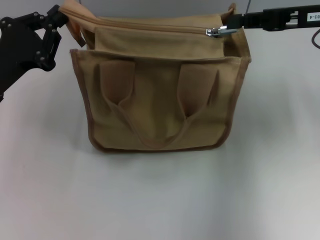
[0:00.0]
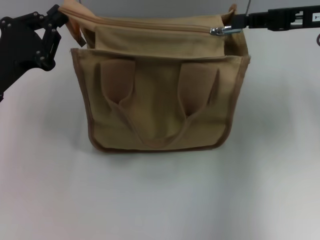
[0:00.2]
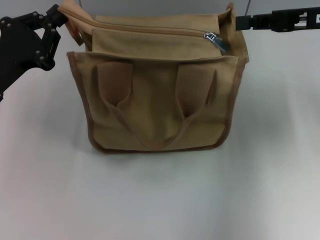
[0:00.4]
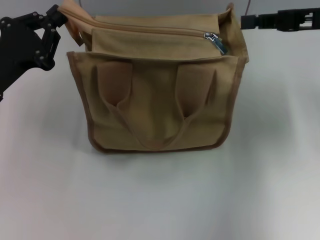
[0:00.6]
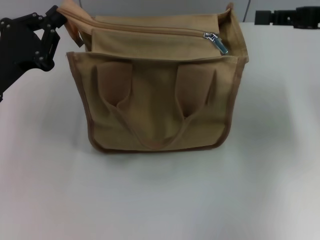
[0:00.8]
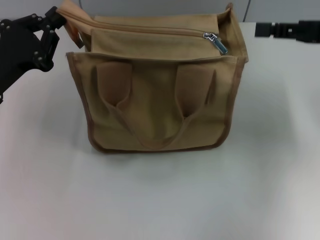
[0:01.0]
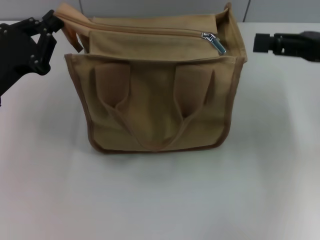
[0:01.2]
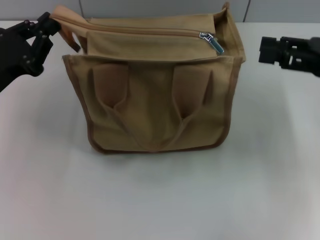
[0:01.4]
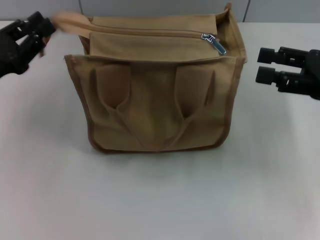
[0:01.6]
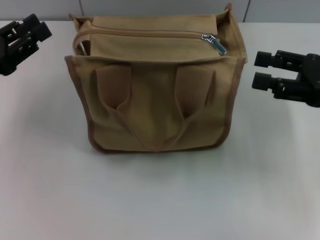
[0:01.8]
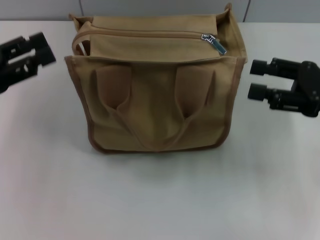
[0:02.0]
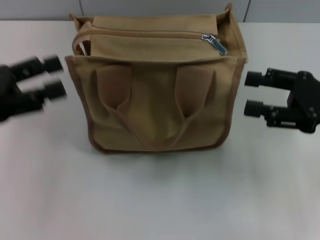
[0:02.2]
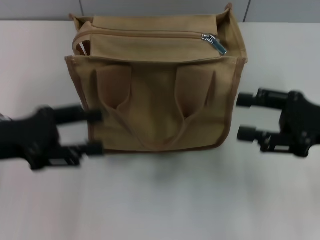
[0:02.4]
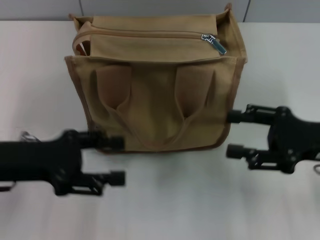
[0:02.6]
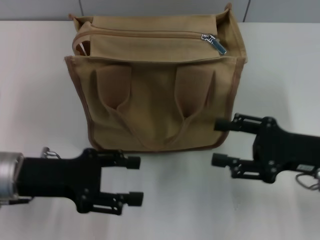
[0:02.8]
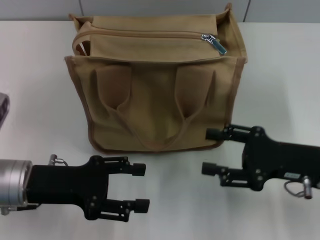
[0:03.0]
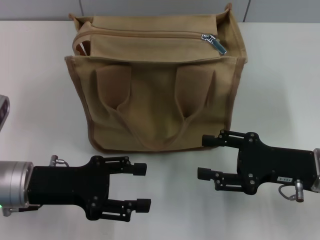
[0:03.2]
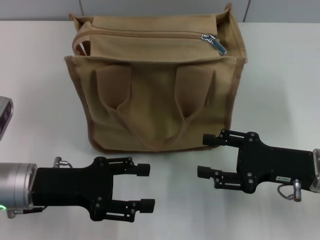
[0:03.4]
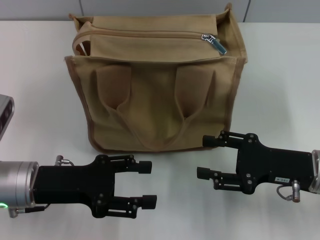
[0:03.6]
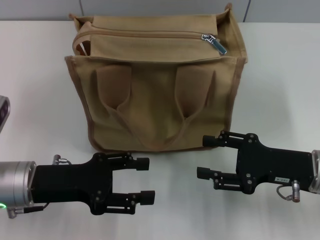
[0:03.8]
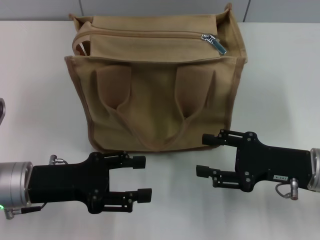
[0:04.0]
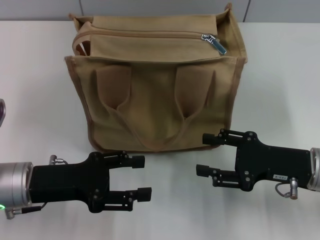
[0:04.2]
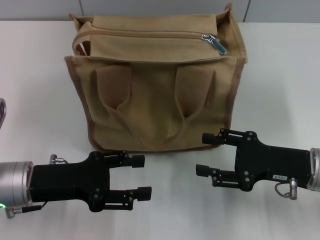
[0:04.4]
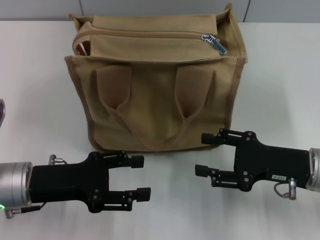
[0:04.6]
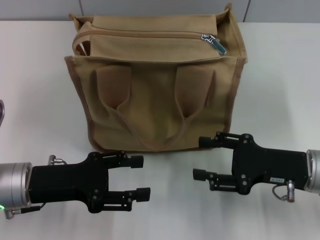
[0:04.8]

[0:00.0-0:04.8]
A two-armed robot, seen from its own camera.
Step, 0:00.6 to 0:01.6: Grab the zipper with your left hand.
0:00.0 to 0:01.6: The right gripper is displaced backward and downward by some 10 cm, and opens its fingers.
0:01.6 to 0:03.2: The left gripper heads to the right, covering approximately 5 cm, and opens. The right gripper shifts approximately 15 cm downward, to the left and backward.
0:03.2 to 0:04.8: The grippers move only a little.

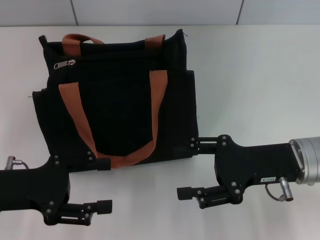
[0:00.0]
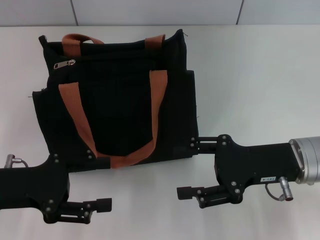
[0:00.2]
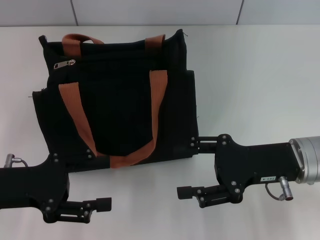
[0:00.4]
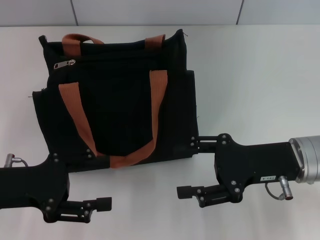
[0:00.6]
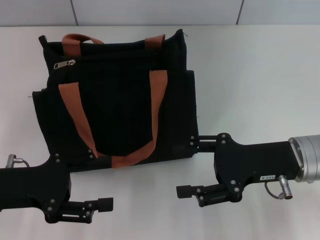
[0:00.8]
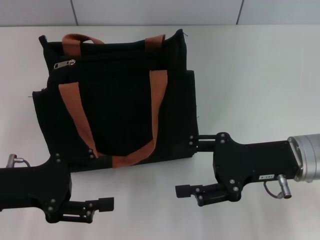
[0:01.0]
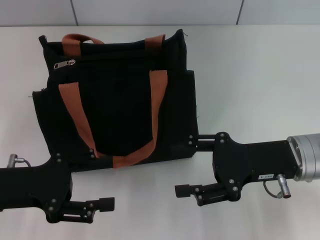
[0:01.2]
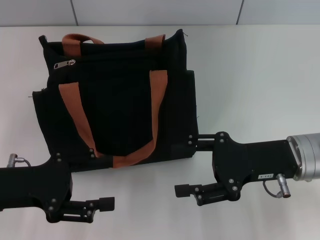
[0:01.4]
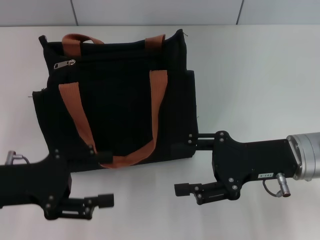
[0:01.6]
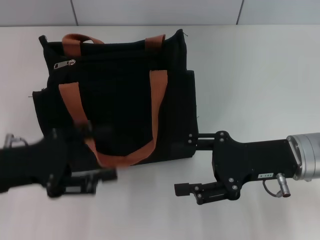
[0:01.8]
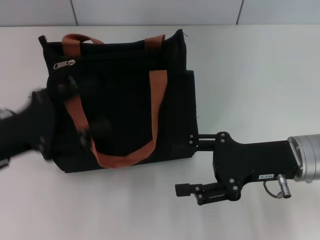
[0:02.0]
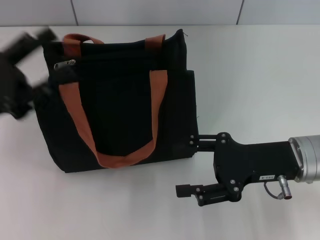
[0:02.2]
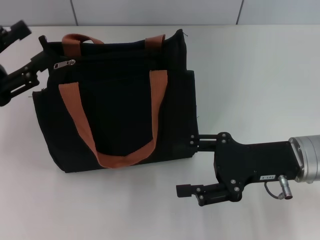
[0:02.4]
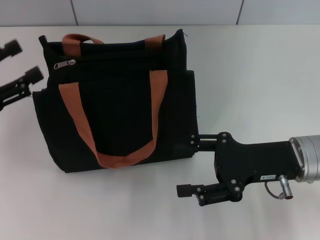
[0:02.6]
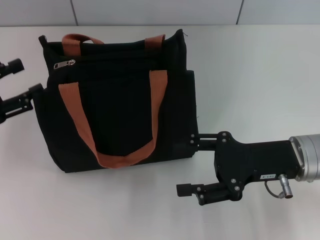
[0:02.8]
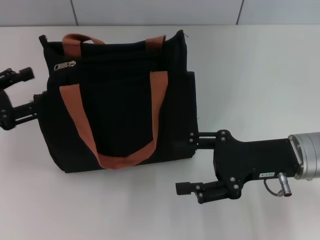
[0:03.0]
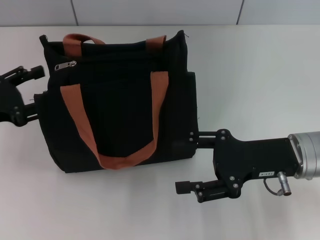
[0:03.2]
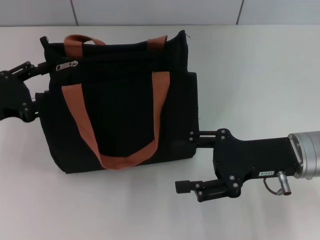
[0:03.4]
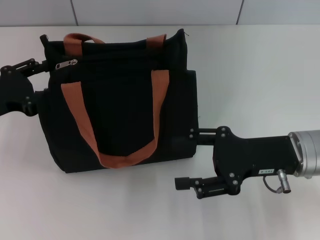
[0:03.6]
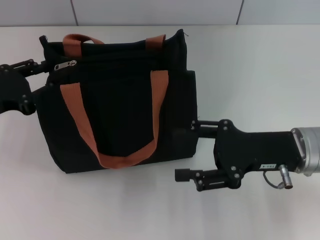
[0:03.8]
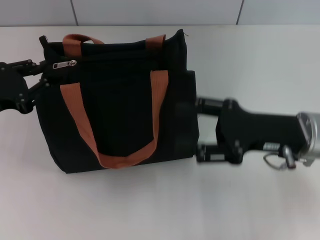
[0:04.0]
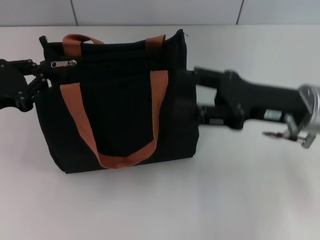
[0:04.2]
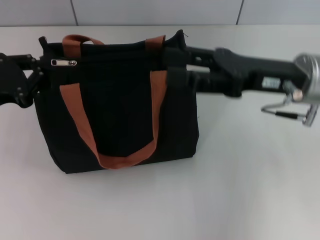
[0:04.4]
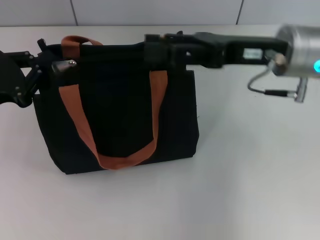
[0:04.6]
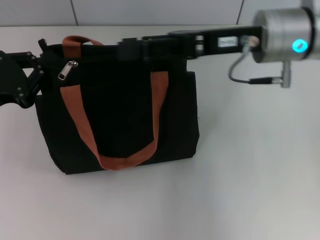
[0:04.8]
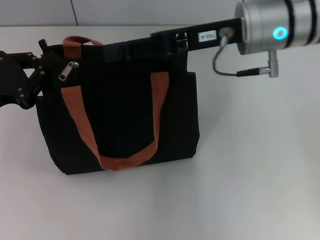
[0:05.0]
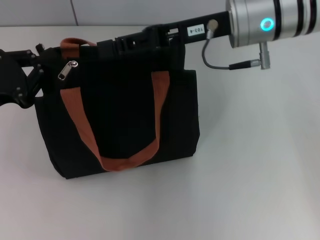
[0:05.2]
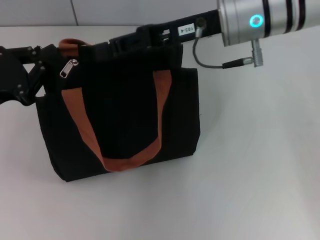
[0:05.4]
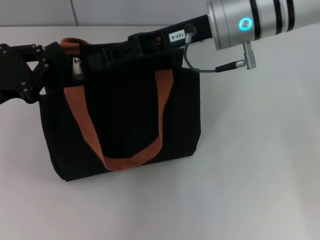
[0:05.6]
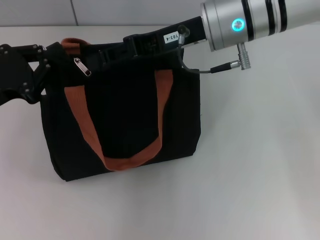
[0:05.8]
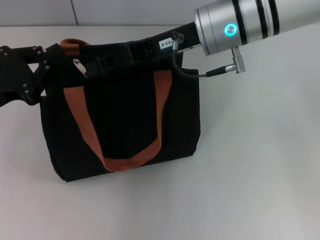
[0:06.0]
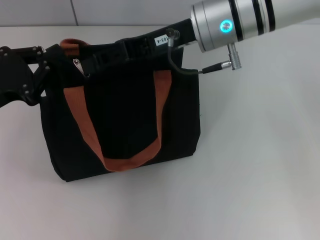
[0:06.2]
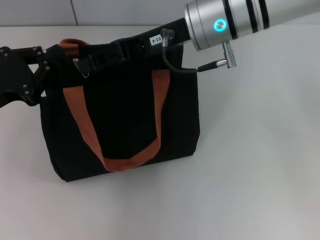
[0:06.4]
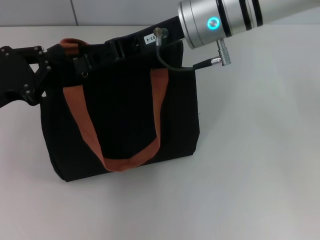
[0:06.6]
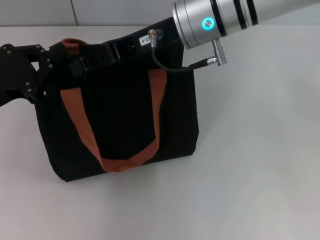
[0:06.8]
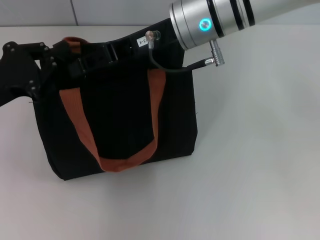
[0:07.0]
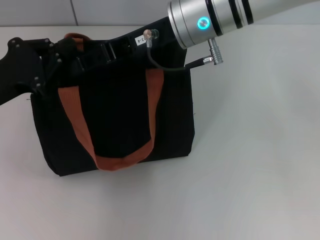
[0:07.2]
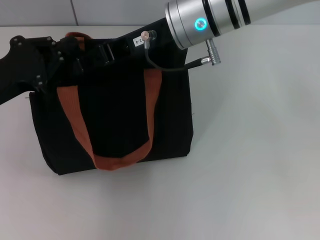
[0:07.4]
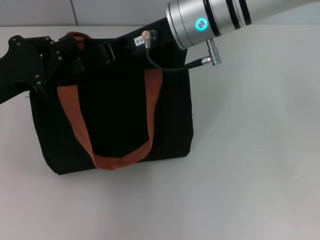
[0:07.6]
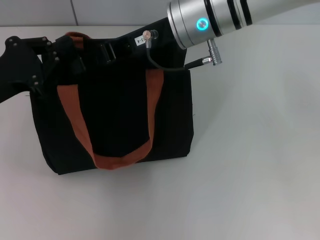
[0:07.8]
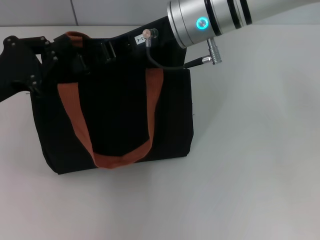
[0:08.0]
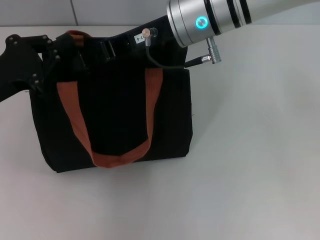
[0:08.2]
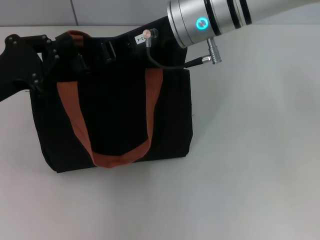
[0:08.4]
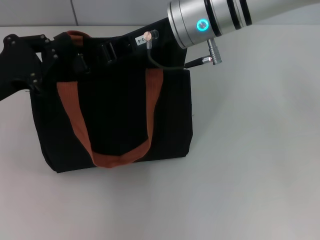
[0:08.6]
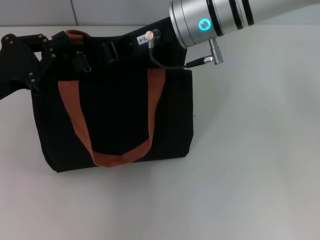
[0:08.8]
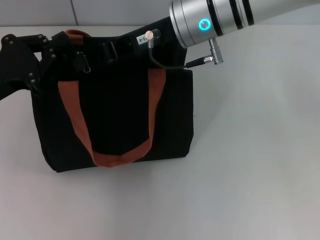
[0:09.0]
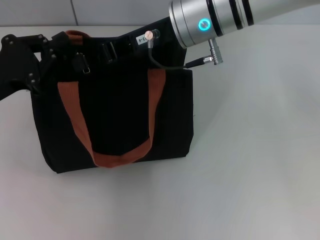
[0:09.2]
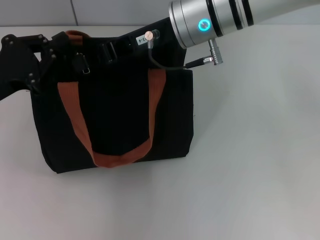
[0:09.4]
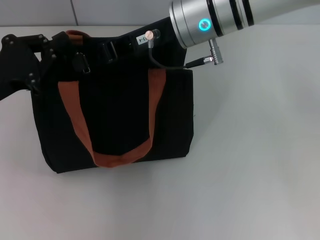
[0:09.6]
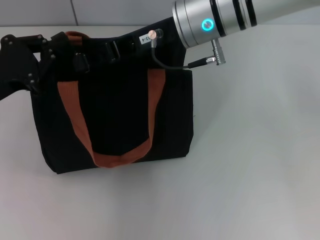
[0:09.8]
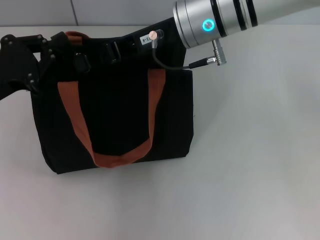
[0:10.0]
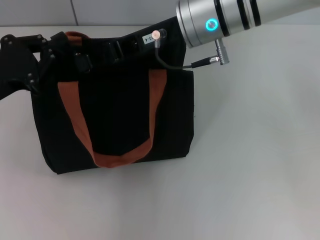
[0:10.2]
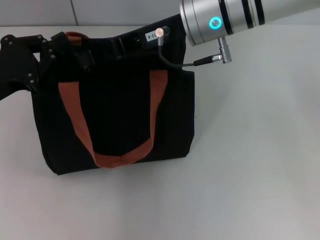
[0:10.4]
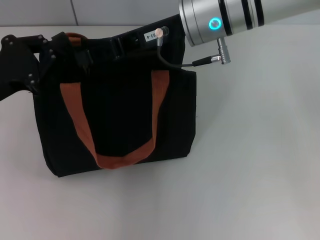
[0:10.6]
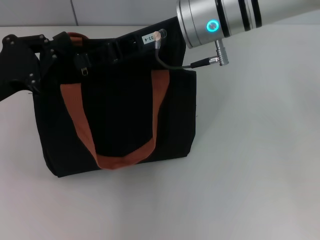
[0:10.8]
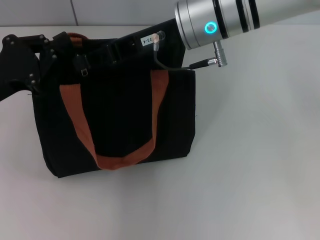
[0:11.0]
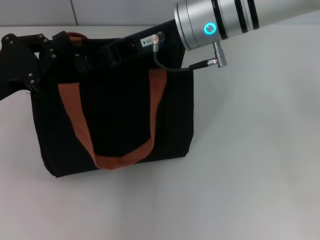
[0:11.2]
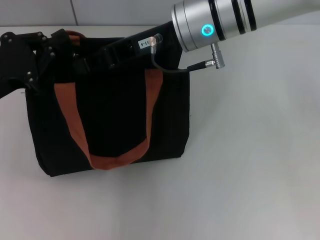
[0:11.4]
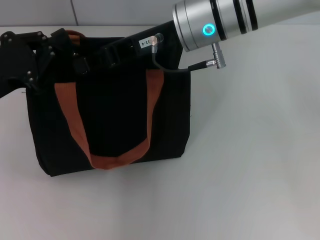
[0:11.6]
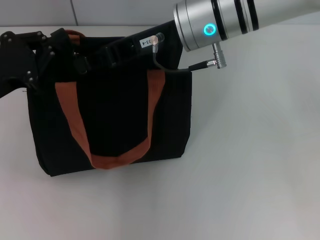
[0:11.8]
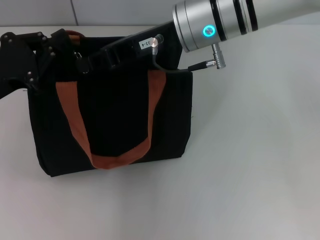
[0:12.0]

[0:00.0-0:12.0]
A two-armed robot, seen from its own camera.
0:00.0 to 0:01.6: Both grippers stay put.
0:01.6 to 0:03.0: The left gripper is displaced to the left by roughly 5 cm.
0:03.0 to 0:04.4: The left gripper closes up. The right gripper is displaced upward by roughly 5 cm.
0:04.4 to 0:06.0: The right gripper goes about 15 cm to the left and forward, and closes.
0:06.0 to 0:07.6: The grippers make only small movements.
0:07.6 to 0:09.0: Neither gripper changes place.
0:09.0 to 0:12.0: The two grippers keep their place.

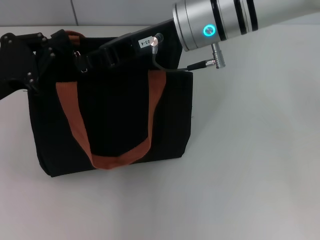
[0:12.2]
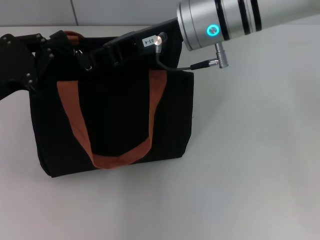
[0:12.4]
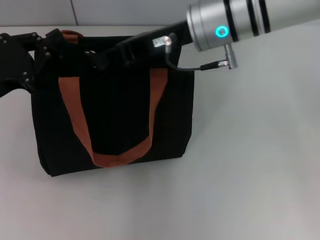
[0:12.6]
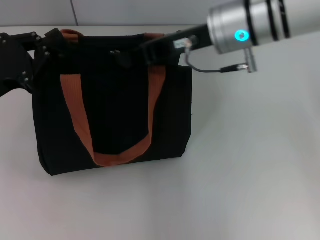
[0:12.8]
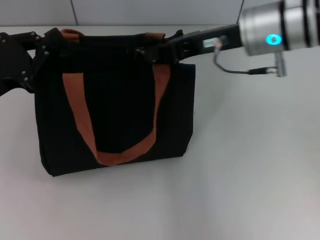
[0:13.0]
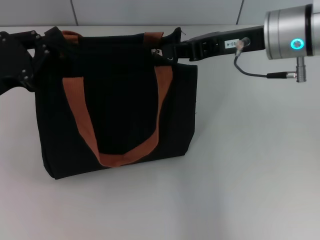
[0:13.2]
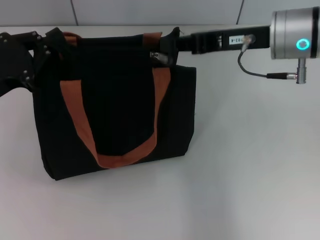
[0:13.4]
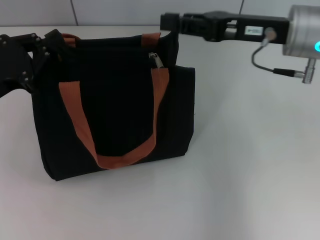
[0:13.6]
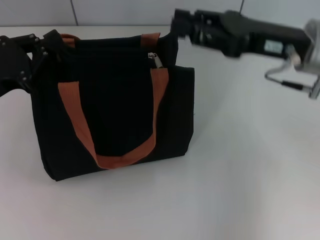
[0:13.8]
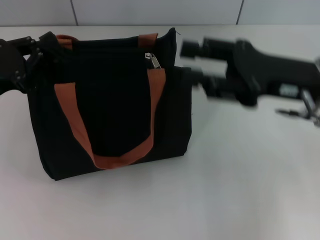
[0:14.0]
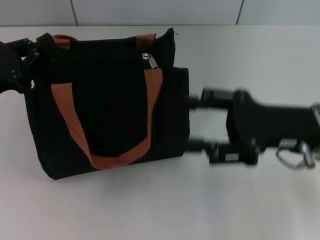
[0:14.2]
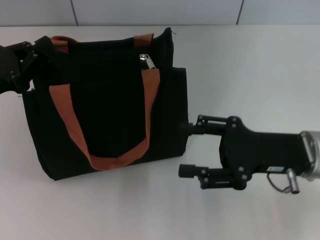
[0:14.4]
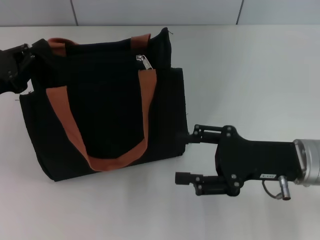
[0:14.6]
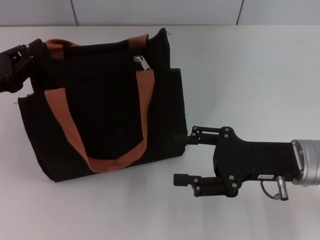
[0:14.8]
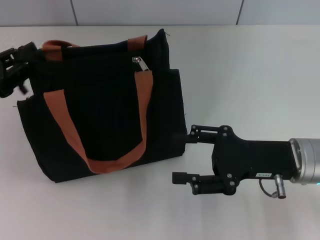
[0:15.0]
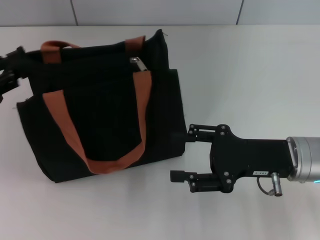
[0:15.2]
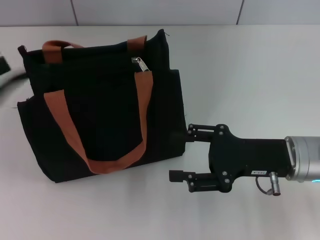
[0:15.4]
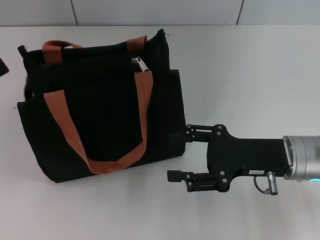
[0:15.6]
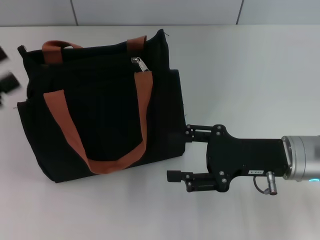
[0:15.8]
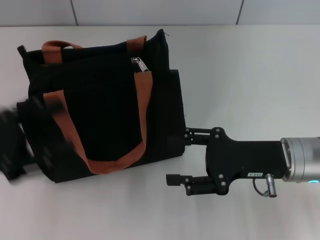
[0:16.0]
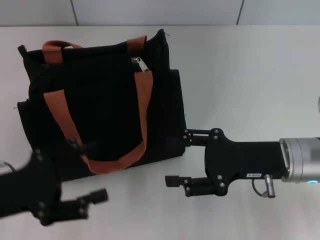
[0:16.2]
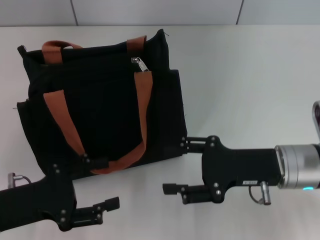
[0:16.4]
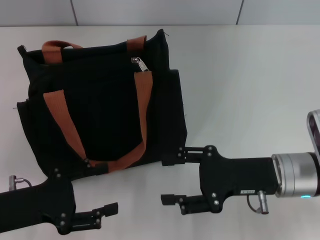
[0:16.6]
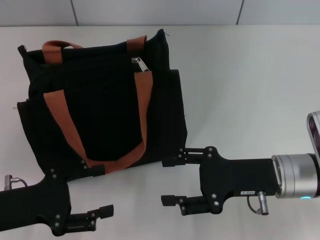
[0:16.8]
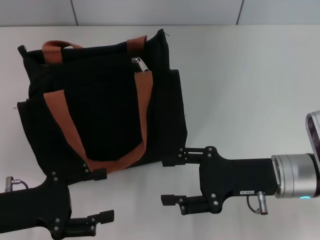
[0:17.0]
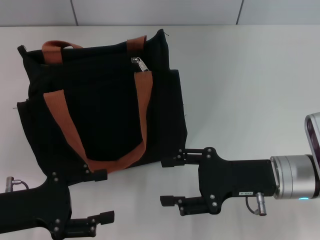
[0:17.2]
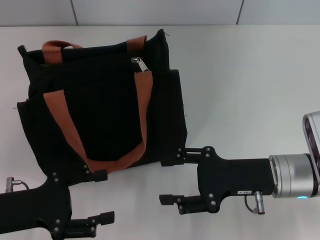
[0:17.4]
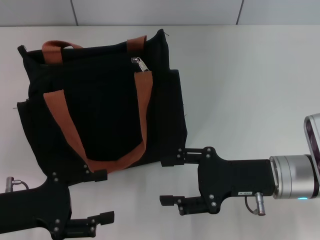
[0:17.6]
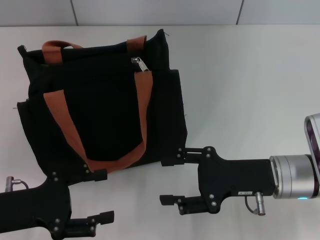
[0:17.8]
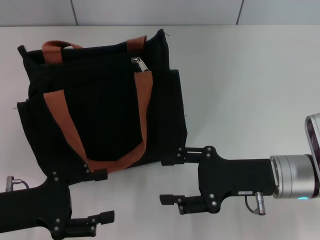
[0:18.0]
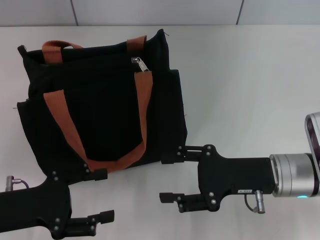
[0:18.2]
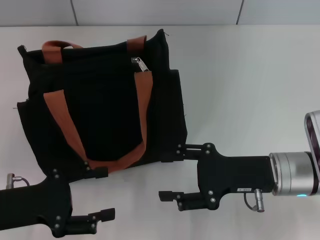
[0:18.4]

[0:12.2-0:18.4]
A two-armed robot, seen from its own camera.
Step, 0:13.4 to 0:15.8: Grab the zipper with your left hand.
0:12.2 to 0:13.8: The right gripper is displaced to the right by approximately 15 cm.
0:13.8 to 0:15.4: The left gripper moves to the left, roughly 5 cm, and opens its fingers; the right gripper is displaced downward and backward by roughly 15 cm, and opens.
0:15.4 to 0:16.8: The left gripper travels downward, to the right and backward by some 15 cm.
0:16.8 to 0:18.4: Both grippers stay about where they are.
